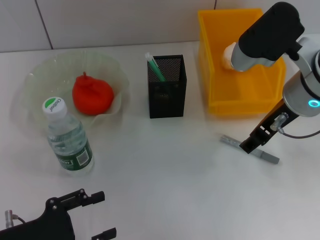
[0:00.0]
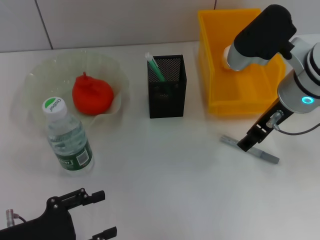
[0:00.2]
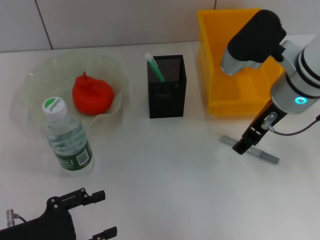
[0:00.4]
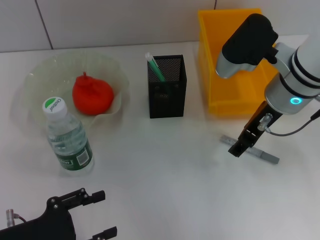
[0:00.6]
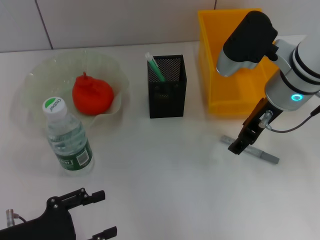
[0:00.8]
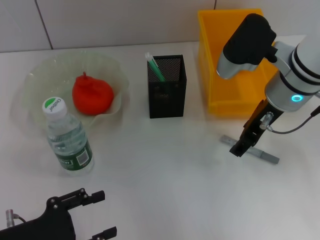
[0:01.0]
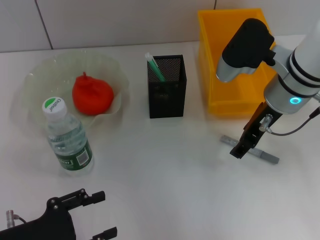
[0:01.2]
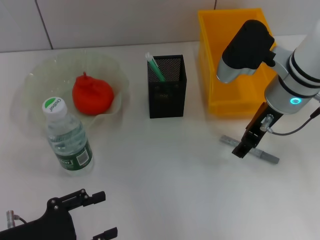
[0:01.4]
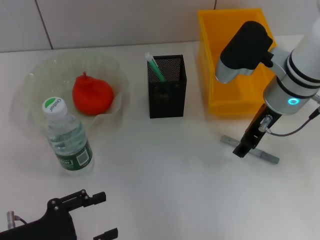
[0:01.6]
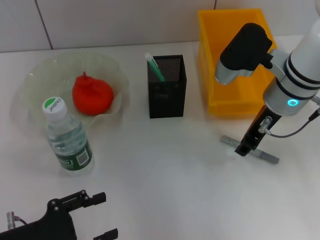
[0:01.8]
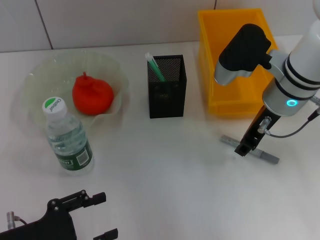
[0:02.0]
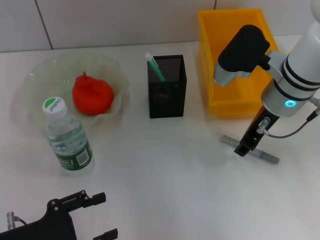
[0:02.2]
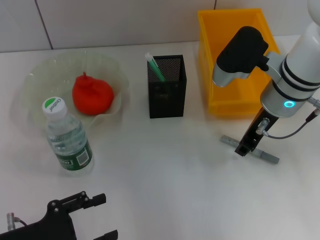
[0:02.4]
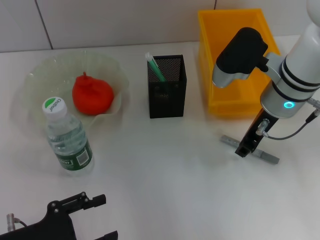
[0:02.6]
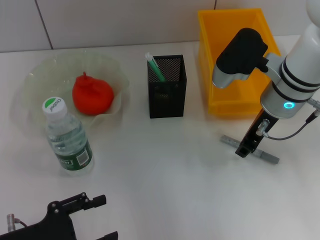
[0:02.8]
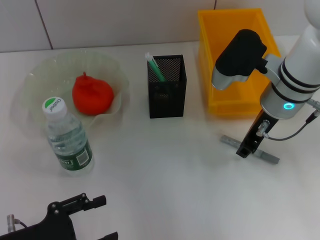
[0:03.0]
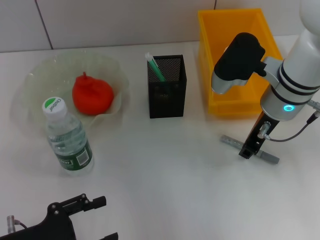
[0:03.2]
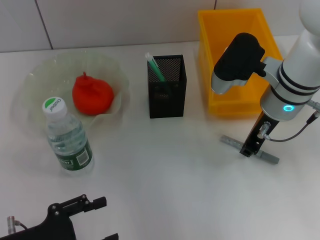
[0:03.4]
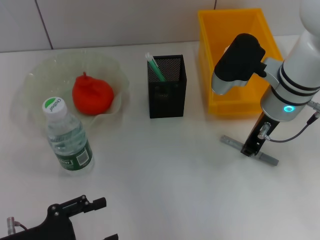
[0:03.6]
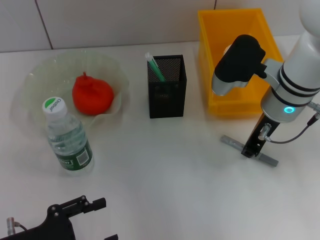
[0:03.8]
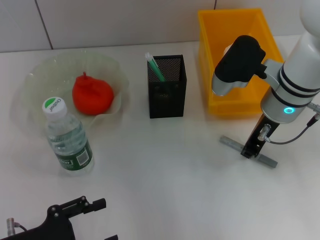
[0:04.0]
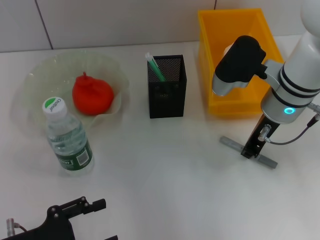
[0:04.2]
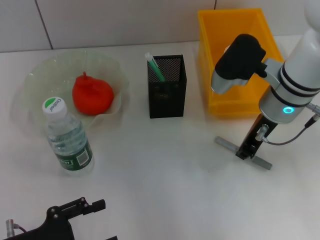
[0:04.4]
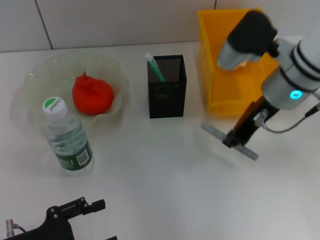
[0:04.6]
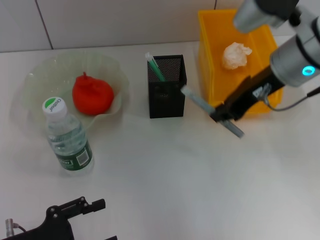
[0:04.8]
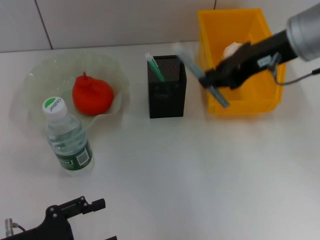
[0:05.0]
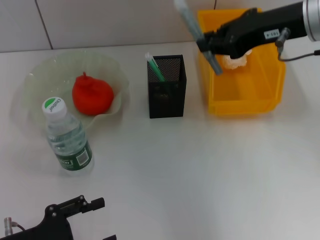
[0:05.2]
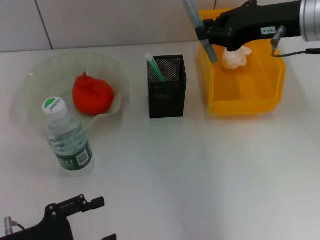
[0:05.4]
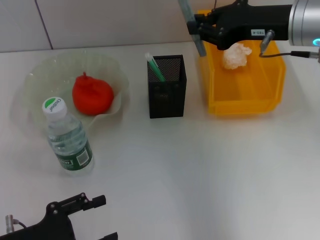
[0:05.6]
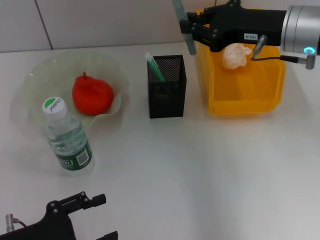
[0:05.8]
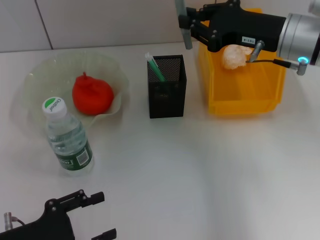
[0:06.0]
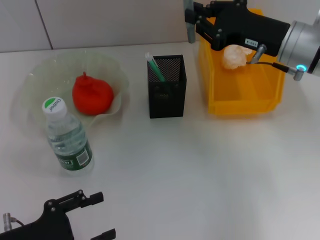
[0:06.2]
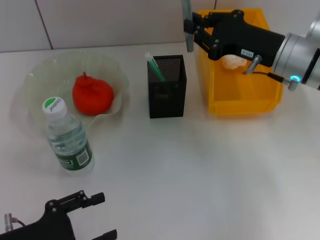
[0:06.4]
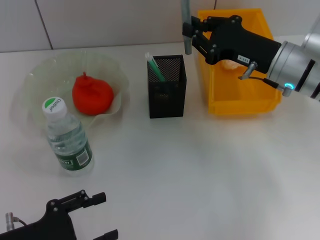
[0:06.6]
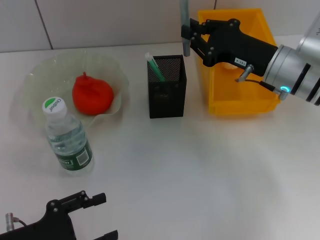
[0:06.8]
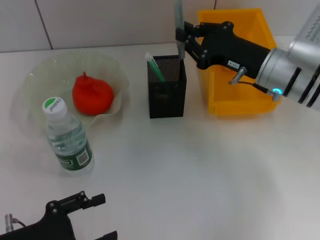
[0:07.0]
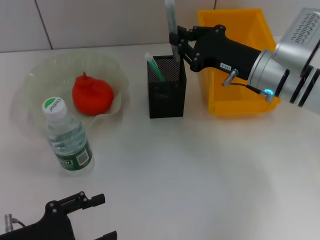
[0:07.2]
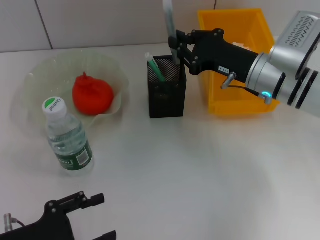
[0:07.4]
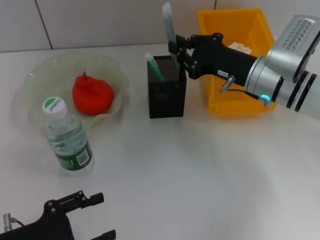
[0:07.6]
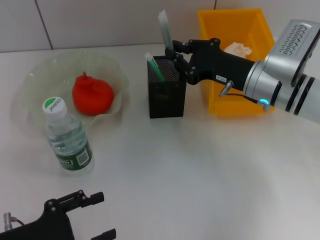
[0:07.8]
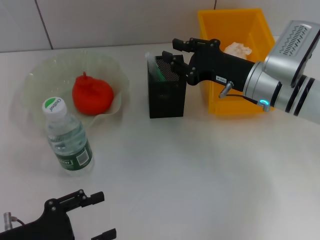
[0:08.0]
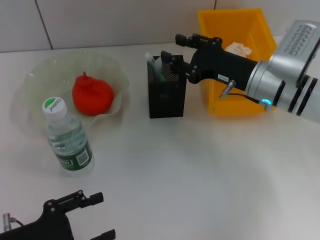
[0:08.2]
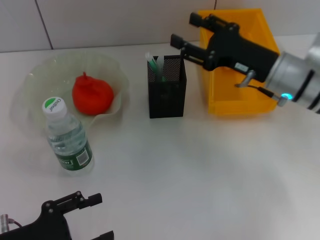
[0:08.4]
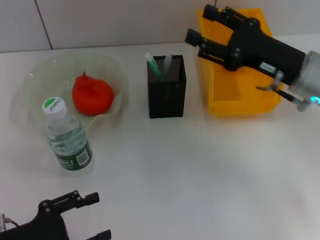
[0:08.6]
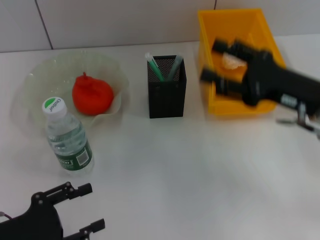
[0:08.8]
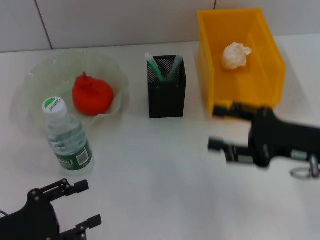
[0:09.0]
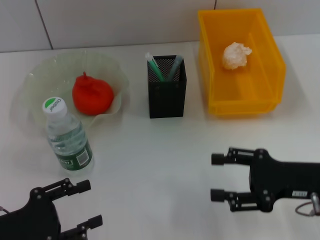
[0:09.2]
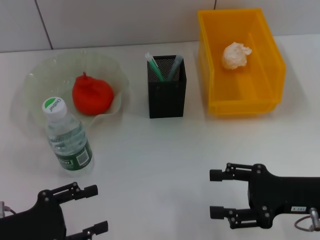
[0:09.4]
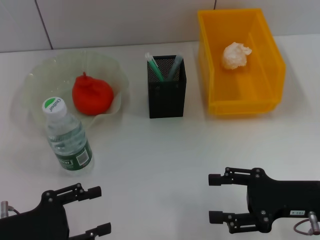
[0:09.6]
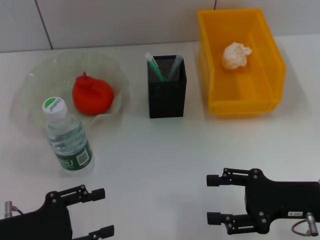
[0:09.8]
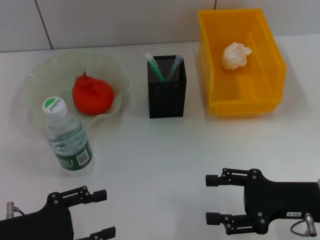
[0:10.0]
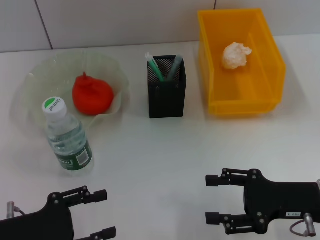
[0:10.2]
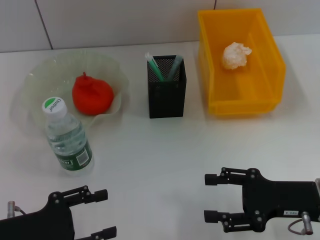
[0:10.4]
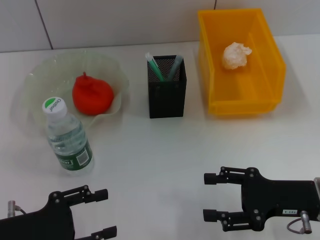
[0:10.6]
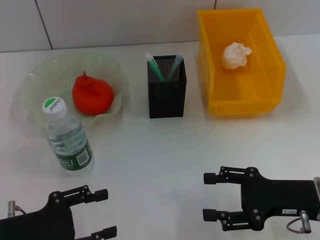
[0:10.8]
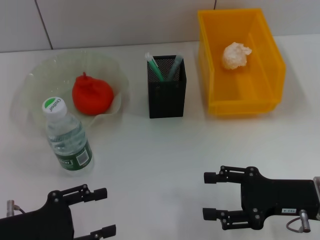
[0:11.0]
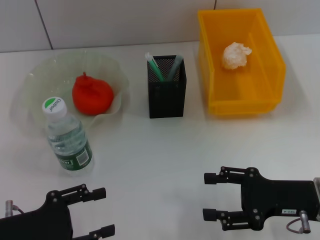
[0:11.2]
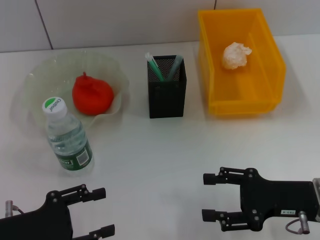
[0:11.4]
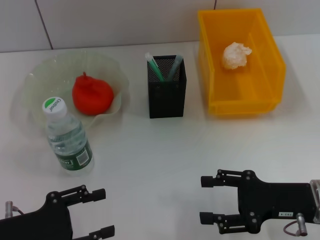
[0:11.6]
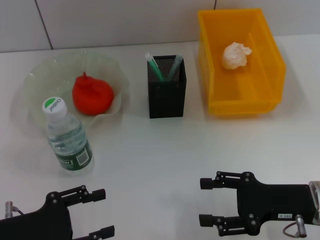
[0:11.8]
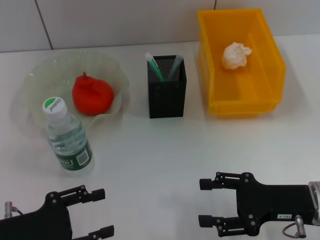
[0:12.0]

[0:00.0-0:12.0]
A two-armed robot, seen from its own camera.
Step, 0.0 to 4.2 s: Grab the gray glue with the right hand.
Step, 4.4 to 8.2 s: Place the gray glue into the pen holder with the right hand.
0.0 to 1.6 s: The right gripper changes place by approximately 5 cm.
1.6 to 3.0 s: The right gripper closes its fingers.
3.0 to 4.4 s: Both grippers stay put.
4.4 to 6.0 s: The right gripper goes upward and returns, some 10 cm each way.
6.0 to 7.6 s: The right gripper is displaced downward by roughly 10 cm.
7.6 to 9.0 s: The right gripper shifts about 15 cm backward and to the right, and opens its fingers.
9.0 to 10.4 s: The right gripper shifts by about 5 cm.
10.4 to 12.0 s: The two grippers keep their place.

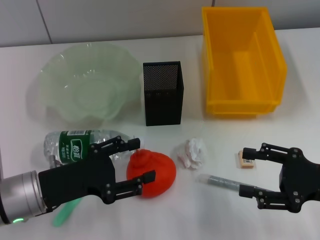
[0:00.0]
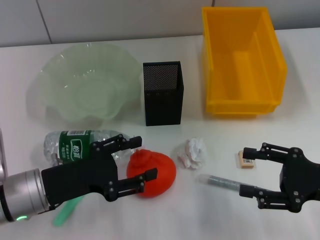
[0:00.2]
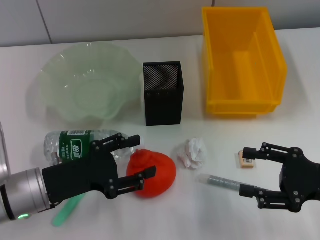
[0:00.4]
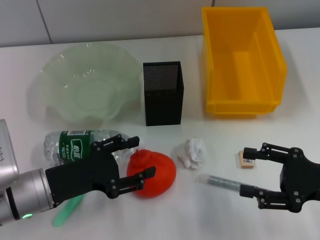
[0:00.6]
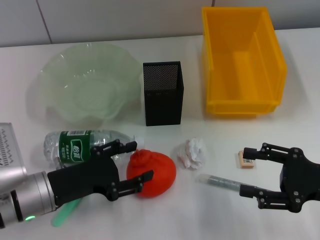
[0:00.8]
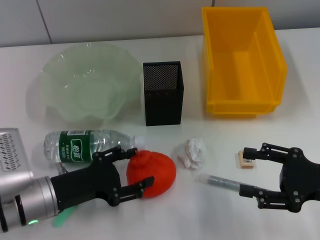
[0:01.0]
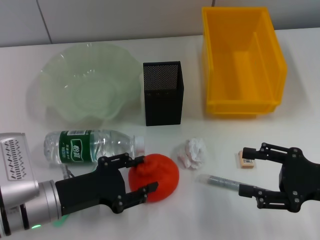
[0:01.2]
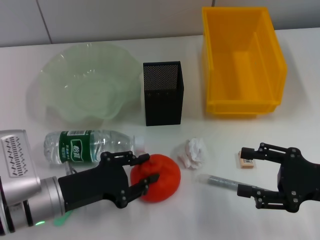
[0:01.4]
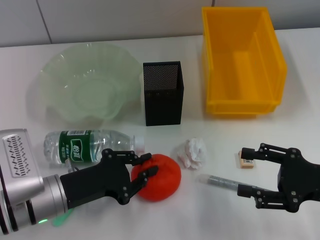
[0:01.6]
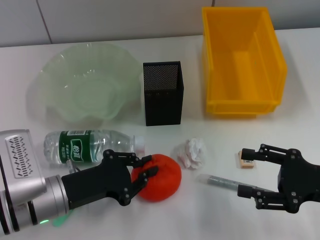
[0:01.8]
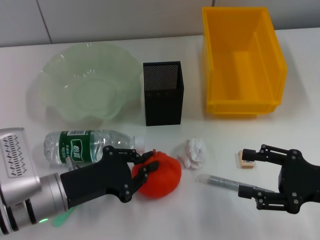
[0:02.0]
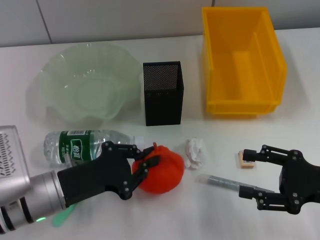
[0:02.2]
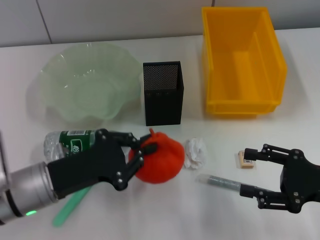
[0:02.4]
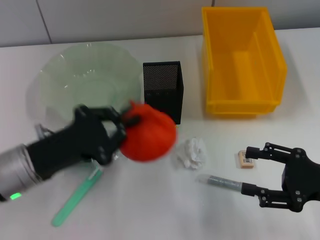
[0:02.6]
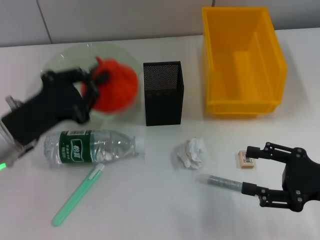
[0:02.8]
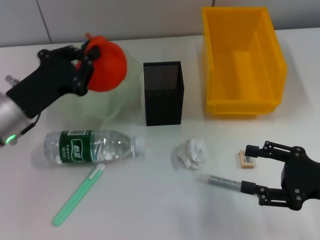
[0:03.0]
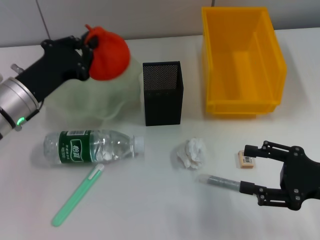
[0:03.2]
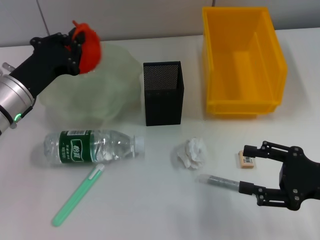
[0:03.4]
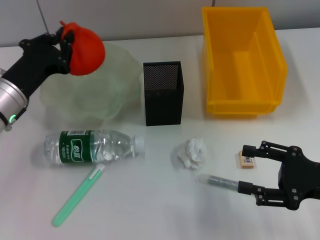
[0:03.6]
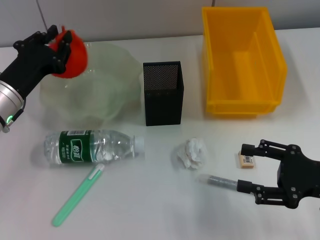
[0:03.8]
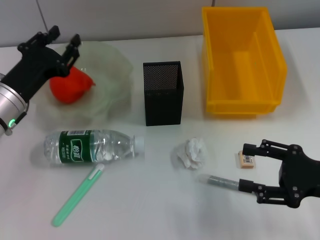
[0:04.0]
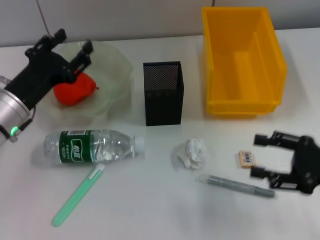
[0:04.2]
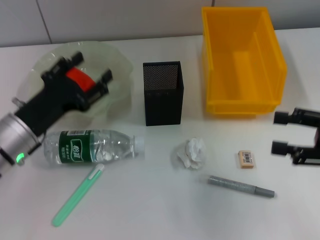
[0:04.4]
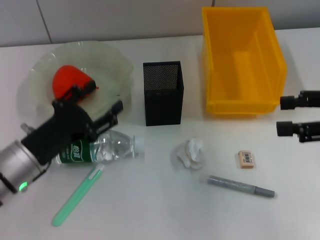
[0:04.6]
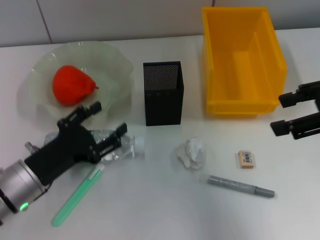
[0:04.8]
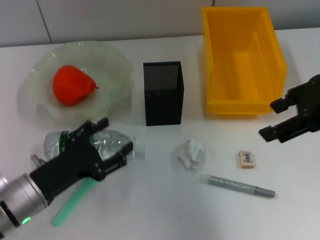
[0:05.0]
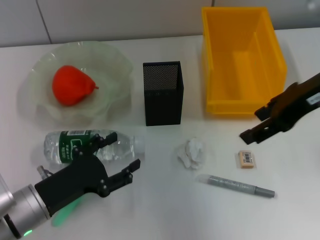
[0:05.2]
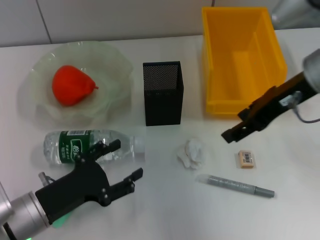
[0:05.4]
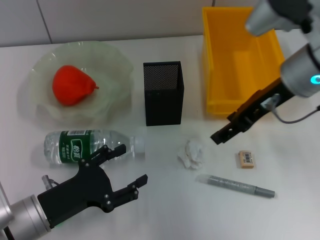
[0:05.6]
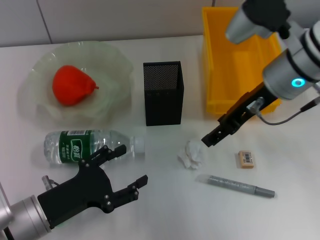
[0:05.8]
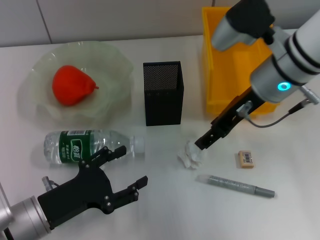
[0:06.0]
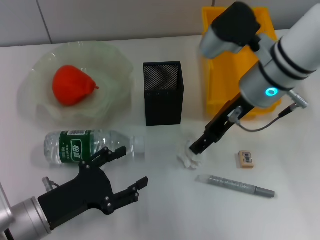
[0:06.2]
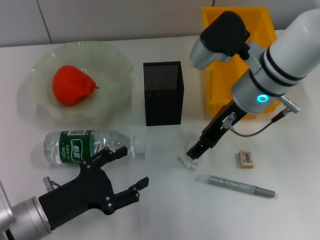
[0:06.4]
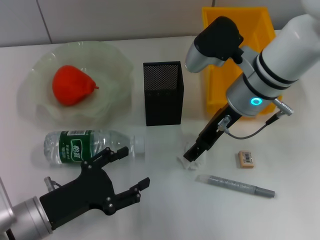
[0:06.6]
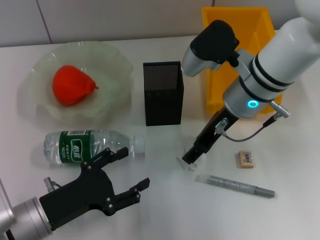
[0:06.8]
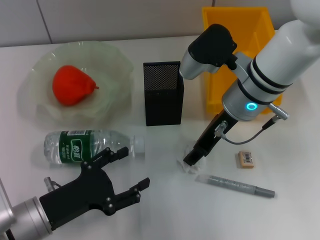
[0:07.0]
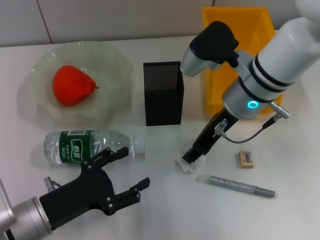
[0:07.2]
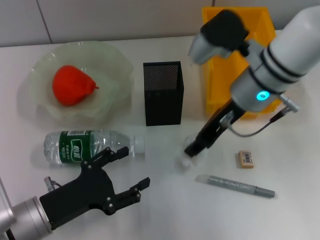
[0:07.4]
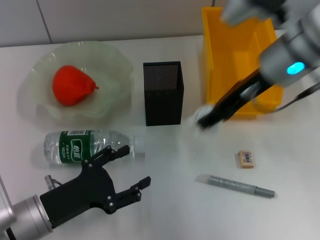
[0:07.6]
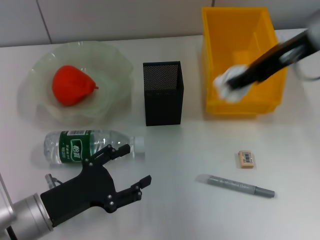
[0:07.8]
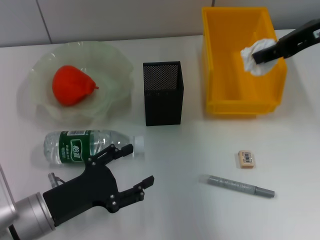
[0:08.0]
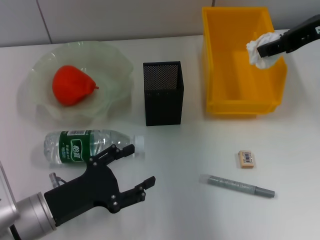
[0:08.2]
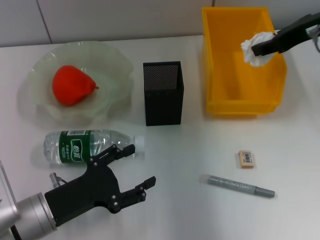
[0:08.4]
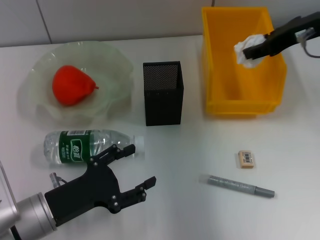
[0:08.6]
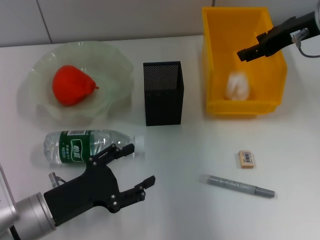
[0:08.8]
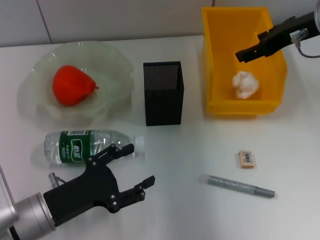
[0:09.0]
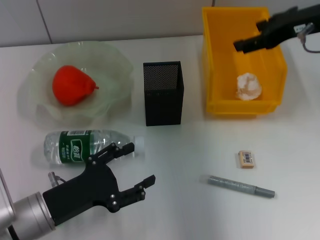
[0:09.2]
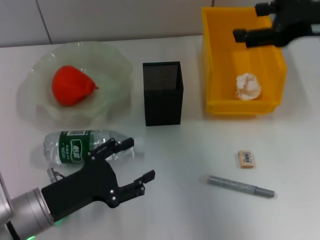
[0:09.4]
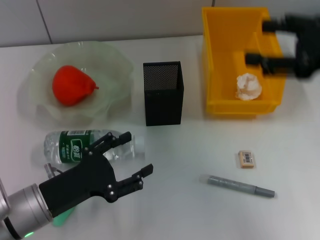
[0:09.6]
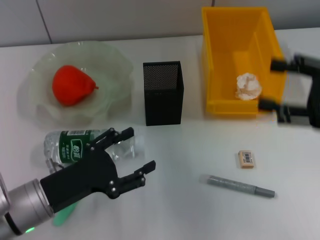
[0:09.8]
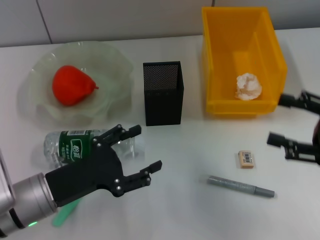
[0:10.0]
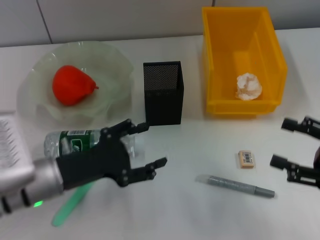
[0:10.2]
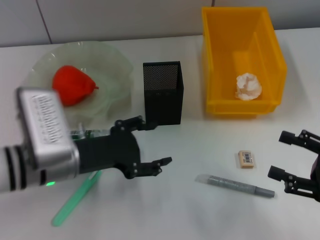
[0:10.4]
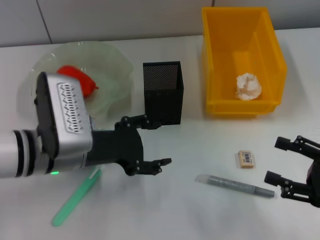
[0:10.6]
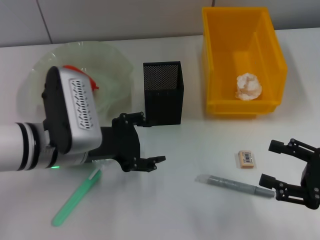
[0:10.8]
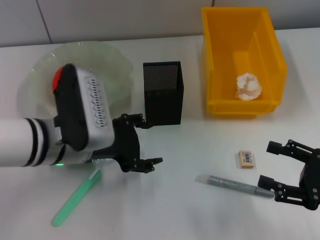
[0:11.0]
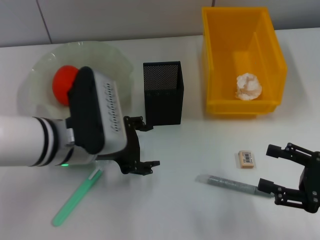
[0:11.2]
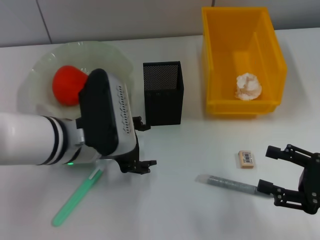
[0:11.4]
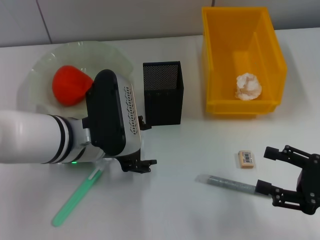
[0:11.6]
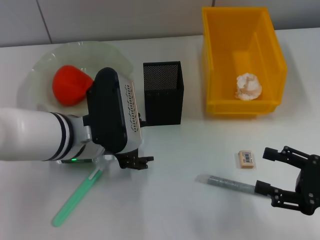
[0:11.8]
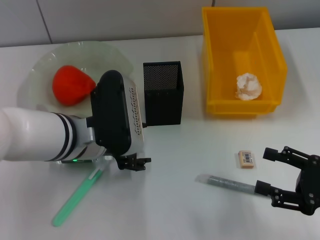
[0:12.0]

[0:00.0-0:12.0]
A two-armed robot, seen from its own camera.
Step, 0.0 to 1.6 s: Grab the orange with the left hand.
Step, 1.8 to 4.0 s: Place the orange into the fruit bowl with the left hand.
Step, 4.2 to 7.0 s: Grab the paper ball with the right hand.
Step, 7.2 to 8.8 s: Place the paper ball into the trash can with the right hand.
0.0 to 1.6 s: The left gripper closes.
1.6 to 3.0 s: The left gripper travels forward and upward by about 10 cm, and closes its fingers.
3.0 to 4.4 s: The left gripper opens up; the right gripper travels upward by approximately 5 cm.
4.4 to 6.0 s: The right gripper travels to the left and forward by some 20 cm; the left gripper is displaced backward by about 10 cm.
6.0 to 7.6 s: The right gripper closes up.
7.6 to 9.0 s: The right gripper is displaced to the right by some 10 cm, and opens.
9.0 to 10.4 s: The right gripper heads backward and downward, covering about 25 cm; the left gripper moves forward and upward, approximately 10 cm.
10.4 to 12.0 s: The left gripper moves to the right, approximately 5 cm.
